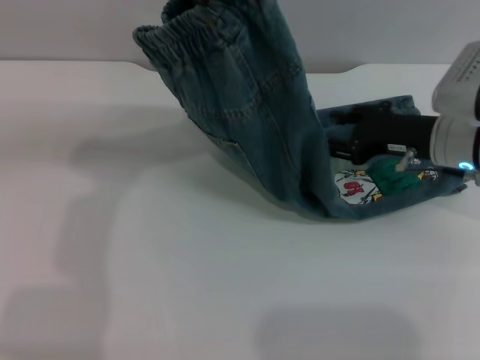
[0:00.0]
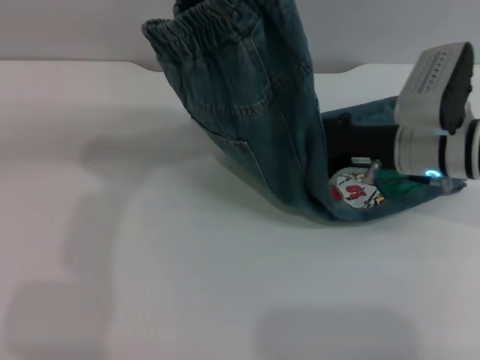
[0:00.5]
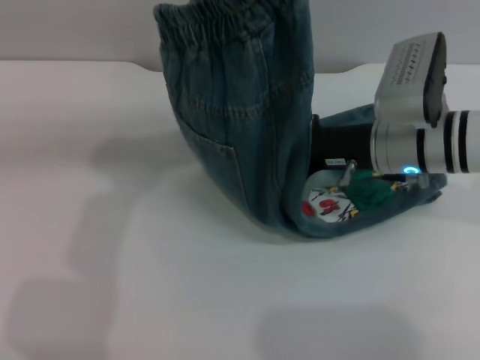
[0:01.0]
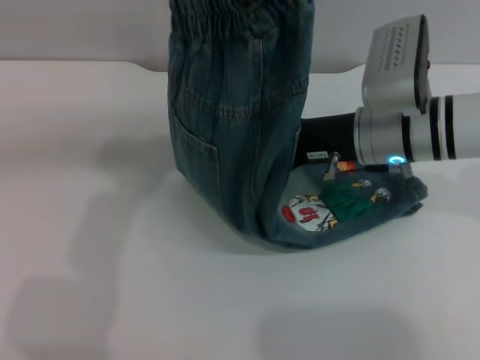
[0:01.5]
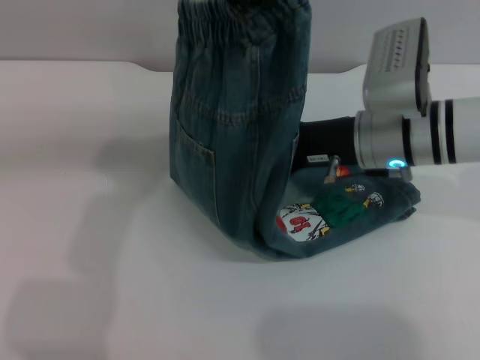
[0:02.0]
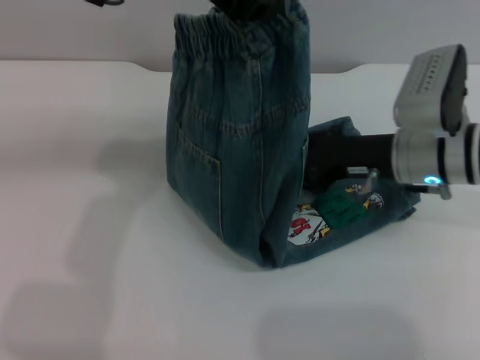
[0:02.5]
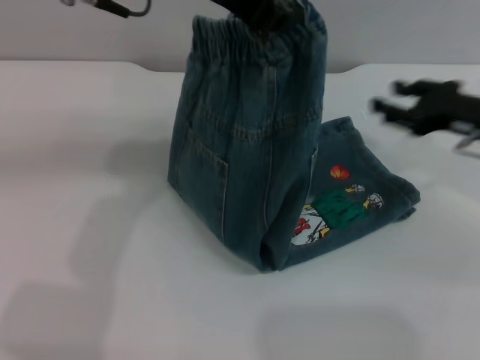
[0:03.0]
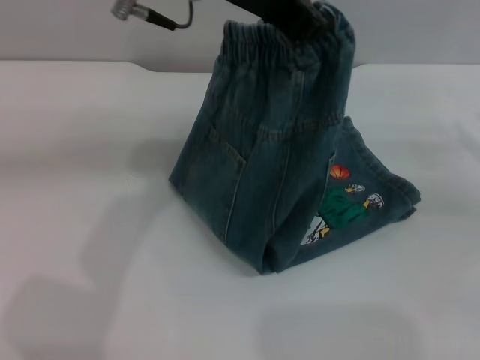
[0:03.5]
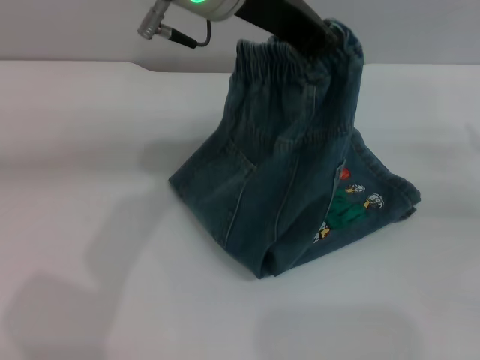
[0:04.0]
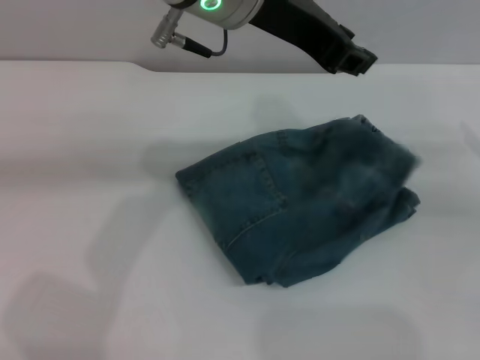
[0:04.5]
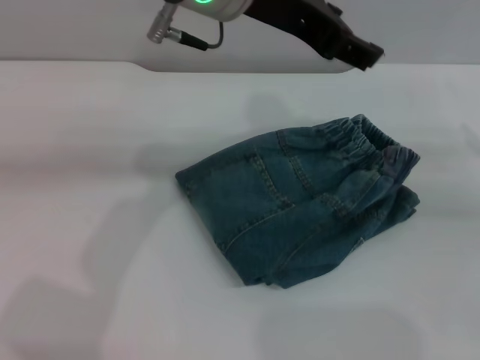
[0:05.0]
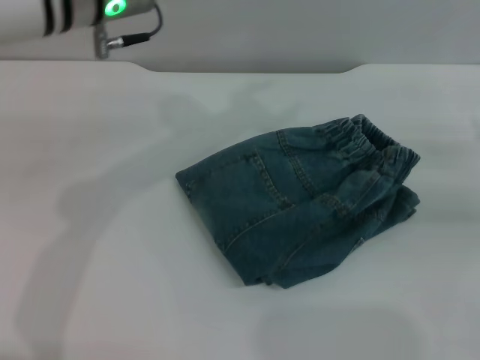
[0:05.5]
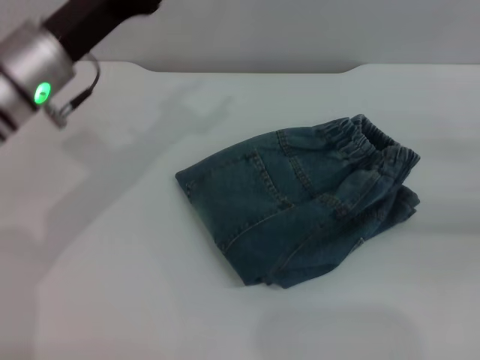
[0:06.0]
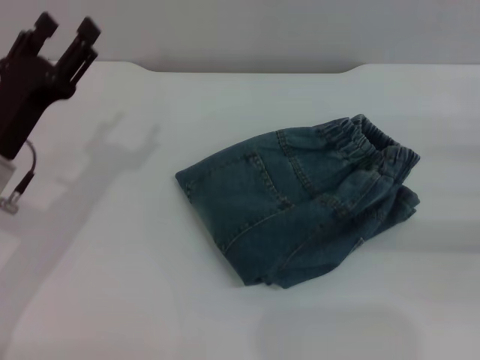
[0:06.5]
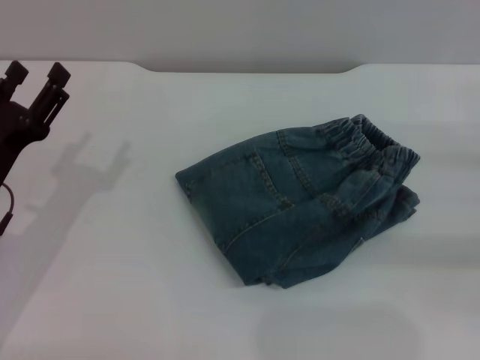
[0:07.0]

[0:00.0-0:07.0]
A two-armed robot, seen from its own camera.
Step, 0:00.0 to 0:04.5: Fold the pants from left to right with the left gripper.
0:00.0 to 0:02.0: The right gripper moves to the left, some 10 cm.
0:02.0 to 0:03.5: The right gripper goes roughly 25 cm to the right; the left gripper moves some 5 cm.
0:03.5 to 0:05.0: The left gripper opens.
0:05.0 to 0:07.0: The left gripper shifts roughly 30 cm downward and to the left; the right gripper moves about 5 cm.

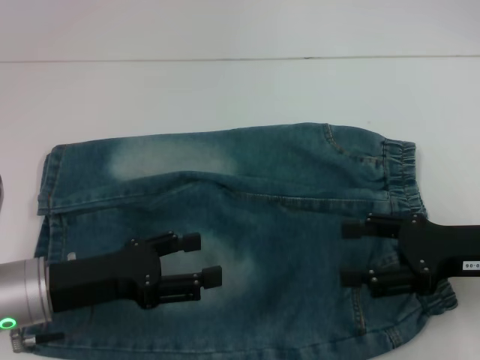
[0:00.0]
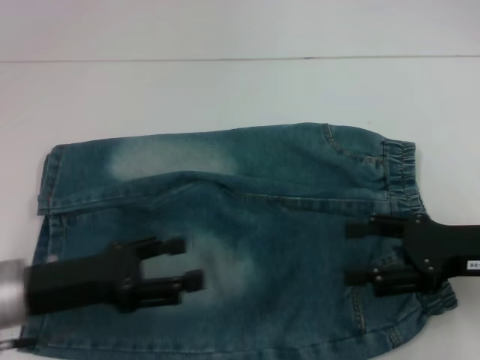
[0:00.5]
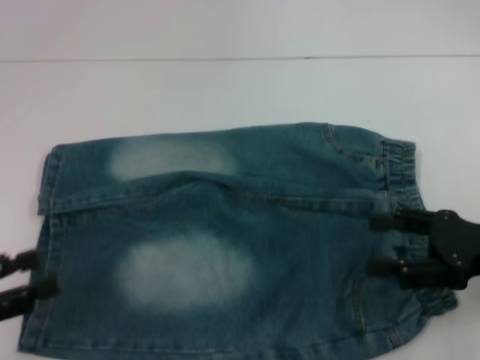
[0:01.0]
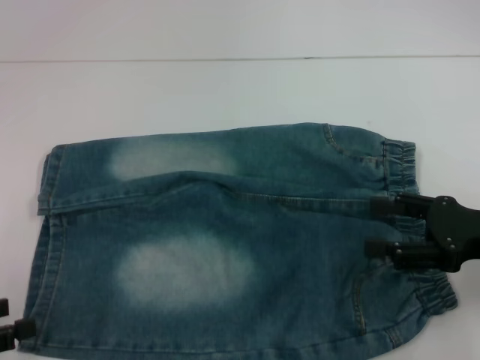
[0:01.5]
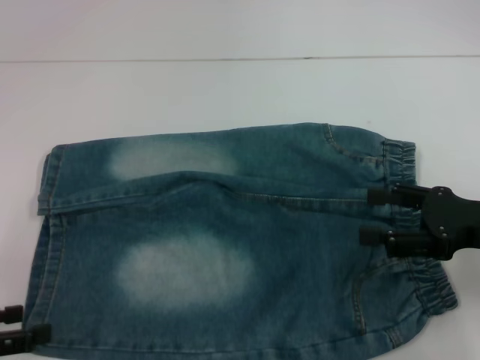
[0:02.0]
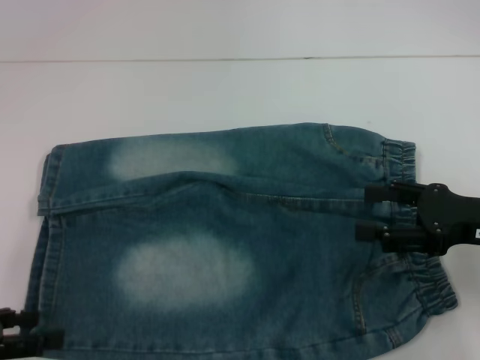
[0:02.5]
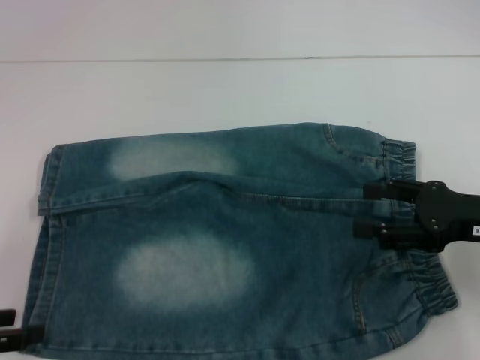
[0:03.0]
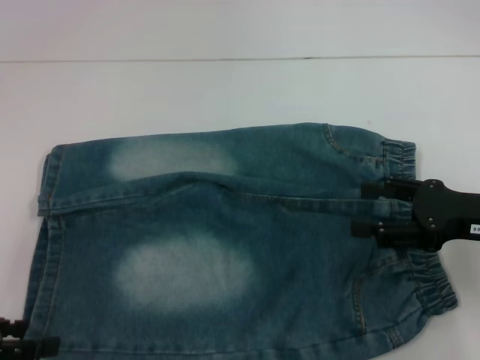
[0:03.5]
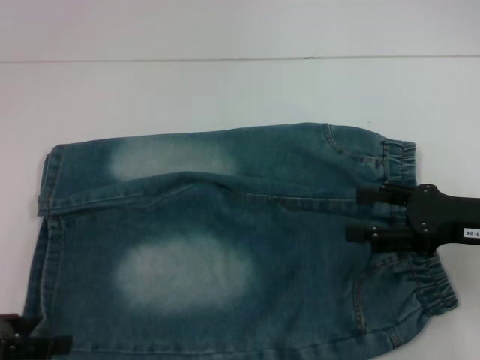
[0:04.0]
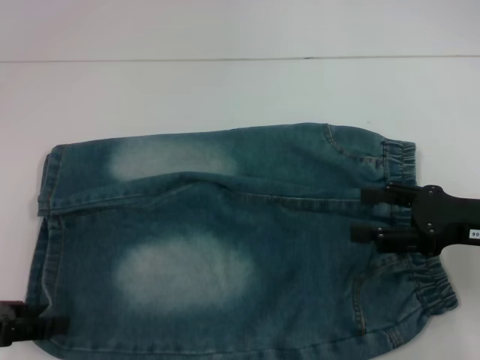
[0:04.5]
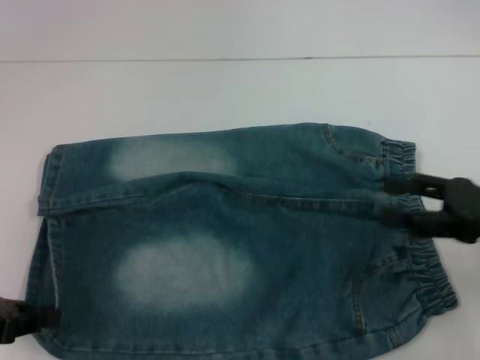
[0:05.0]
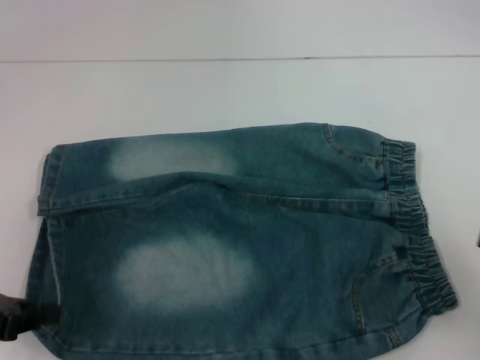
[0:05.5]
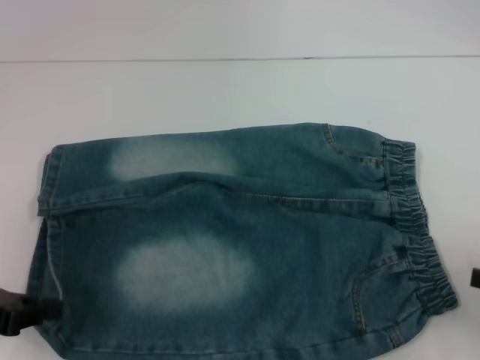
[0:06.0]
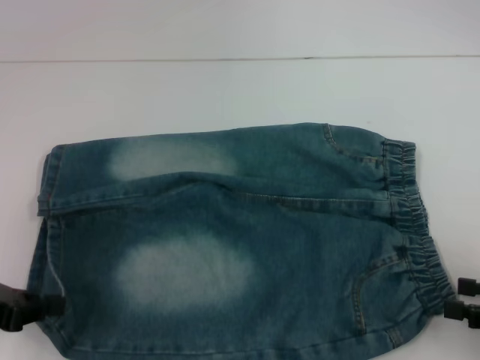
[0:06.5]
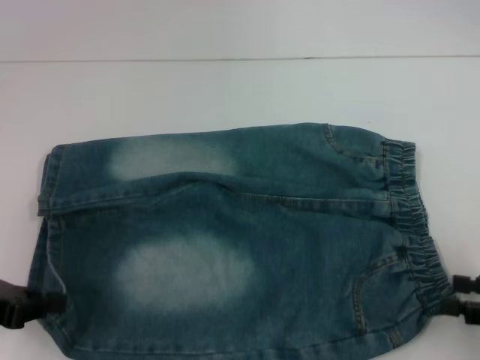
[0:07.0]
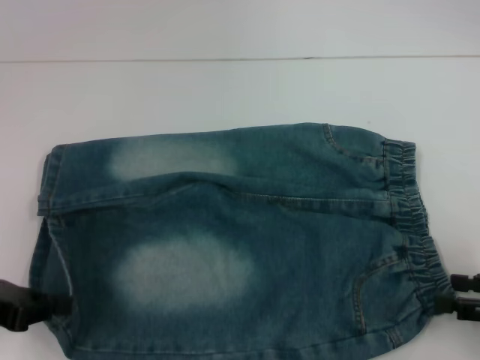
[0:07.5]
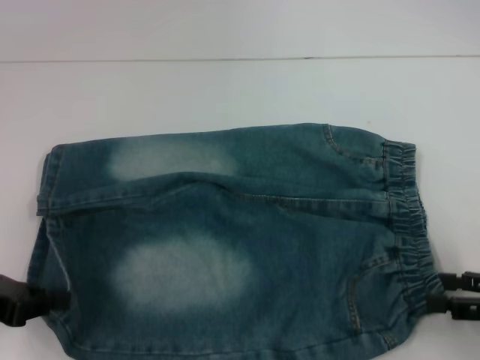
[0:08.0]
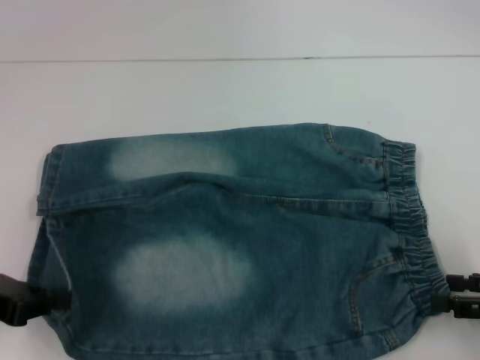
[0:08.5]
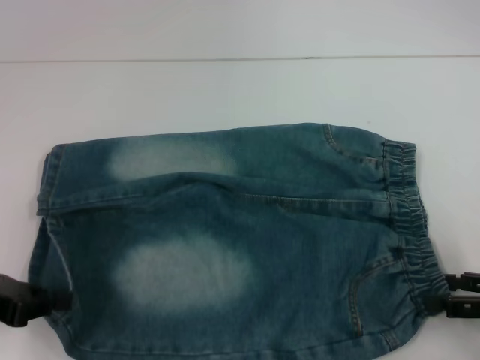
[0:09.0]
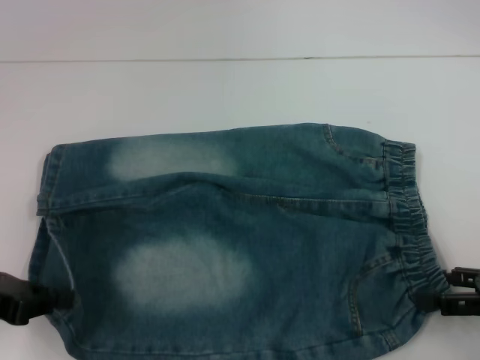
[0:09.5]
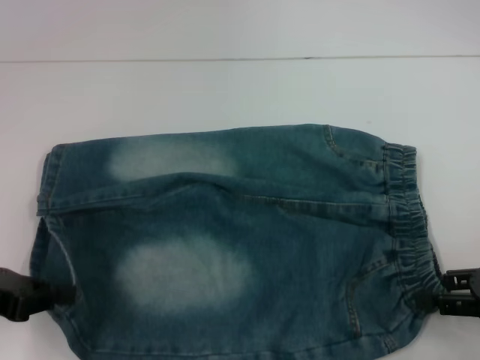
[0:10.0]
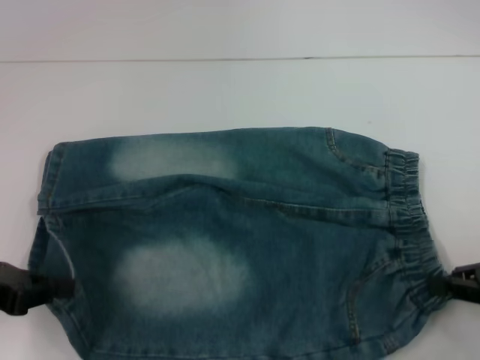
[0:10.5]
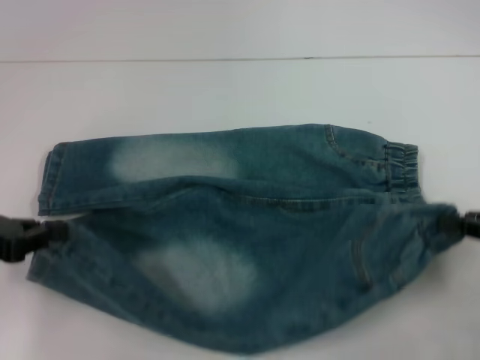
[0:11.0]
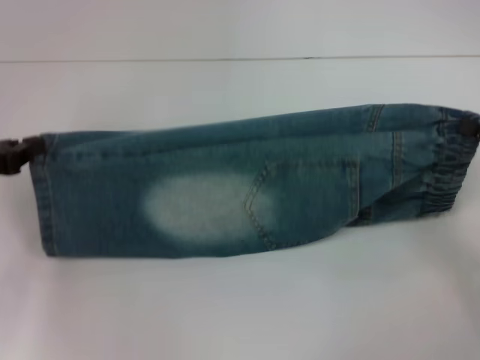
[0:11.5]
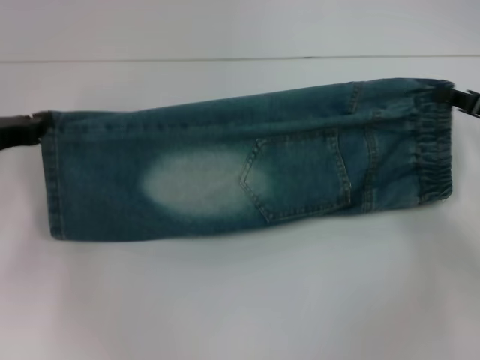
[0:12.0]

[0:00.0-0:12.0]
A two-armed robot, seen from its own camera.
Step, 0:00.0 to 0:04.5: Grab the lower left pant leg with your left hand.
Step, 0:05.0 to 0:10.0: Hold the lower right waistband with your right hand.
0:00.0 to 0:02.0: The left gripper heads to the left and backward, covering about 15 cm.
0:02.0 to 0:04.0: The grippers make only small movements.
0:04.0 to 0:06.0: The left gripper closes. The right gripper is displaced to the right and backward by roughly 15 cm.
0:06.0 to 0:08.0: The grippers make only small movements.
0:08.0 to 0:10.0: The grippers make only small movements.
0:10.0 to 0:12.0: The grippers both shift forward by roughly 10 cm. The right gripper closes its fingers.

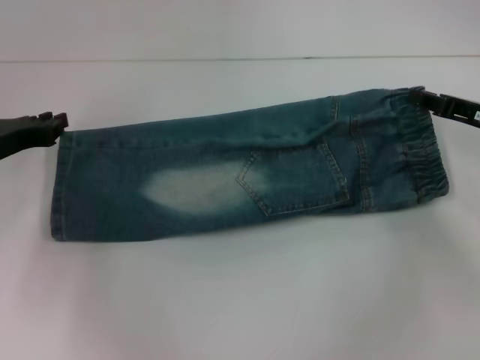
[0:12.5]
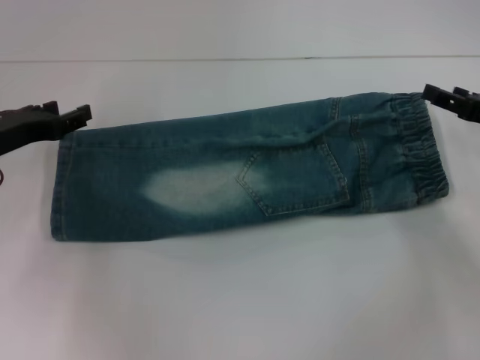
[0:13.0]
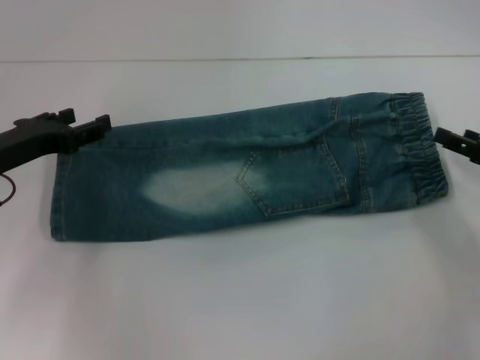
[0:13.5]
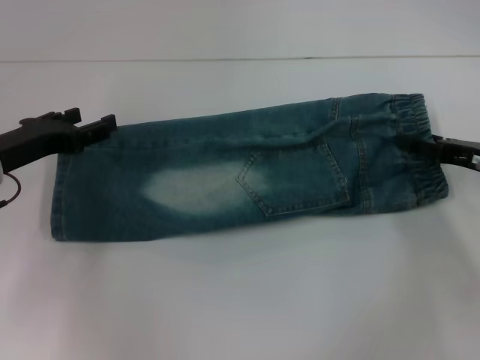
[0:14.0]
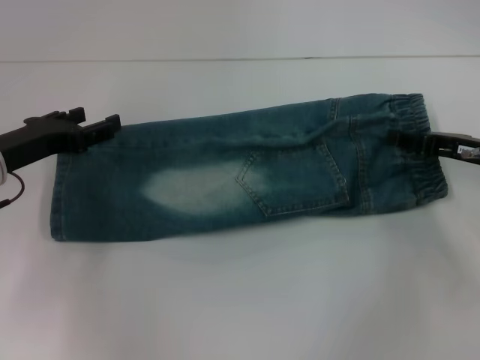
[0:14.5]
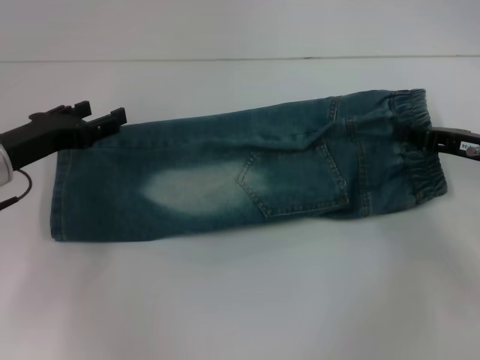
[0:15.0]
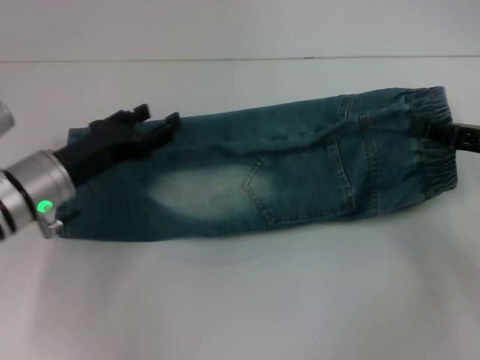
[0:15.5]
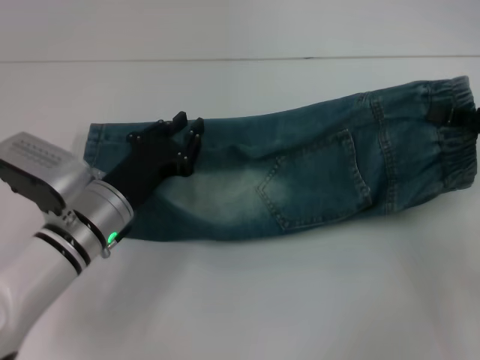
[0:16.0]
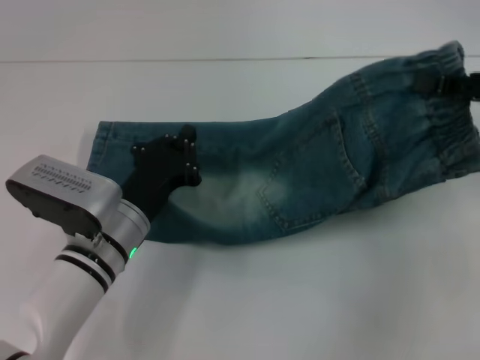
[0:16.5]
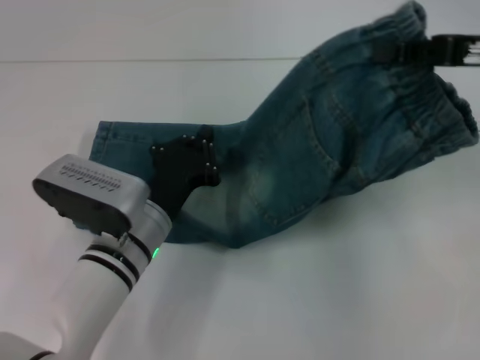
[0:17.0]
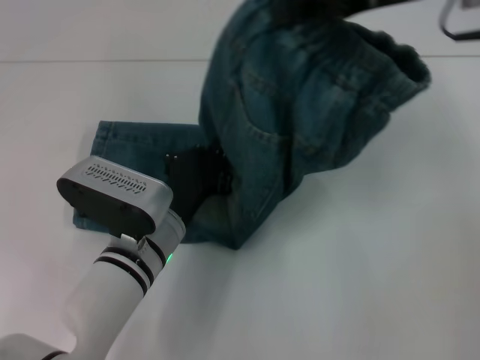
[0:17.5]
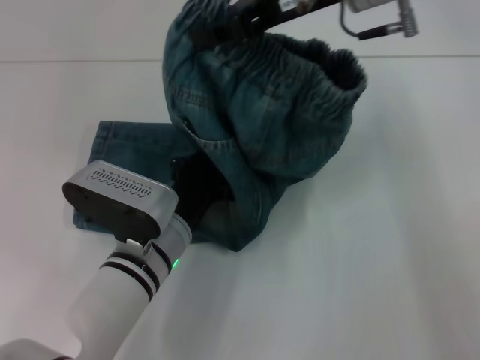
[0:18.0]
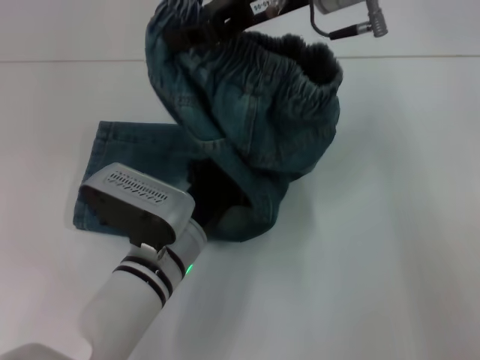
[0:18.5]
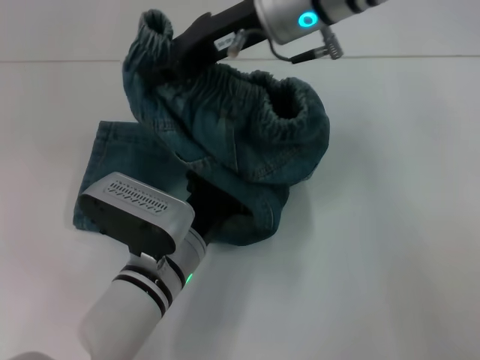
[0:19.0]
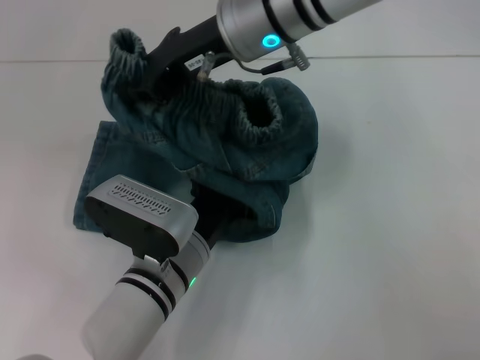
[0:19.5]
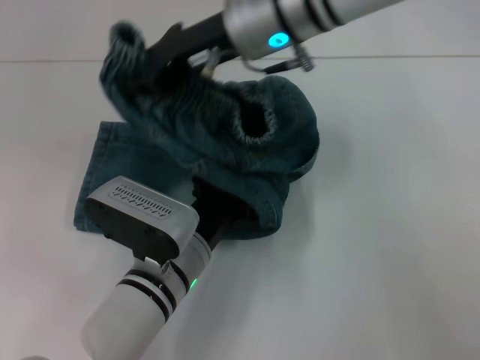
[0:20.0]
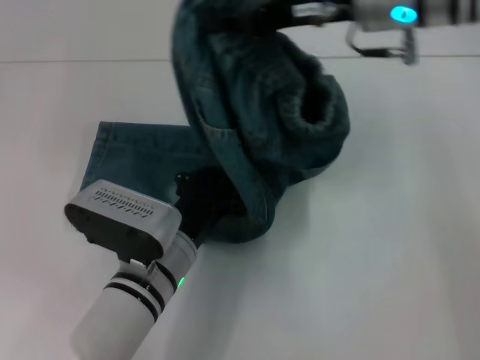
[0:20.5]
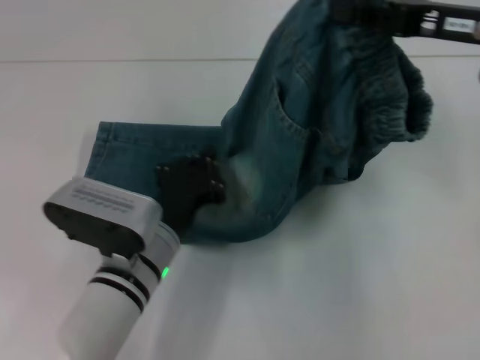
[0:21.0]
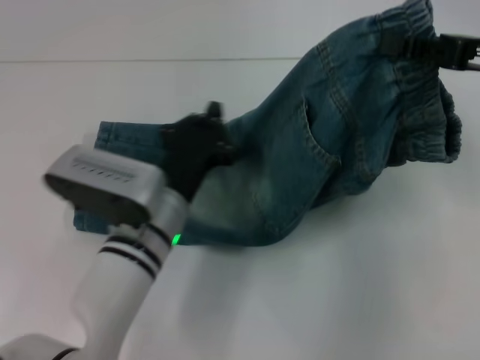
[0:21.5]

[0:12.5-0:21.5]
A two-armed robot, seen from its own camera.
Step, 0:13.5 to 0:14.5: Grab the waistband with your right hand.
0:12.5 to 0:14.5: The left gripper opens up; the right gripper opens its fingers.
0:14.5 to 0:17.0: The right gripper goes roughly 15 cm upward, and closes. Meanwhile the left gripper moves to the right and downward, about 20 cm, and closes its fingers.
0:17.0 to 0:19.5: The right gripper shifts about 25 cm to the left.
0:19.5 to 0:21.5: The right gripper heads to the right, covering roughly 25 cm.
